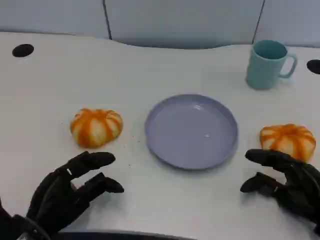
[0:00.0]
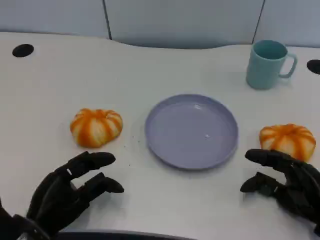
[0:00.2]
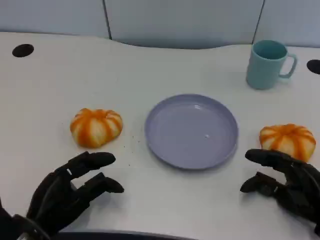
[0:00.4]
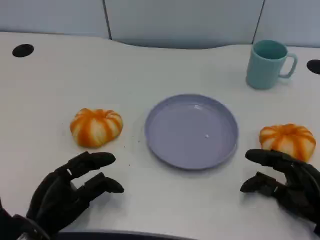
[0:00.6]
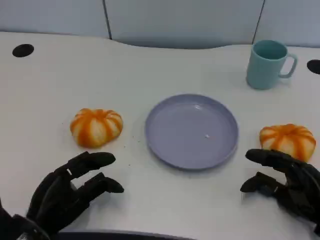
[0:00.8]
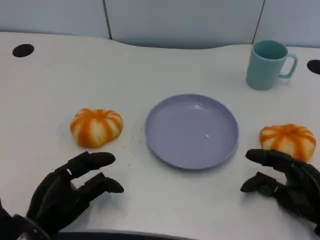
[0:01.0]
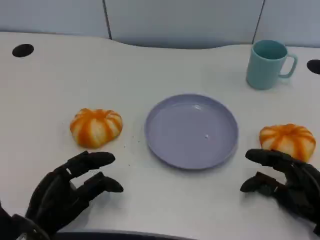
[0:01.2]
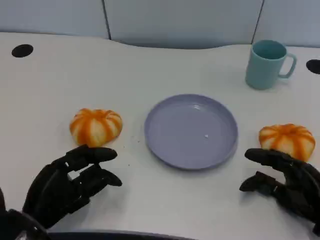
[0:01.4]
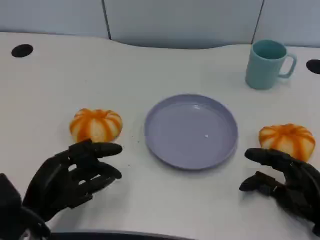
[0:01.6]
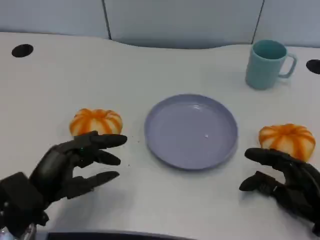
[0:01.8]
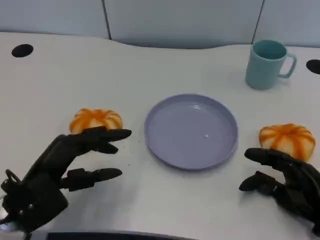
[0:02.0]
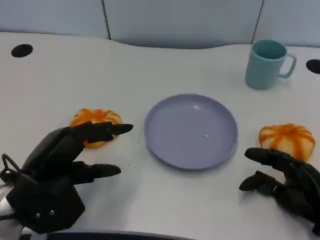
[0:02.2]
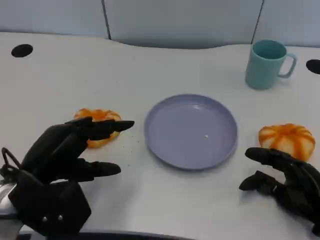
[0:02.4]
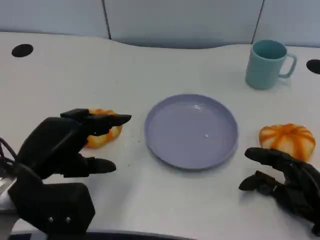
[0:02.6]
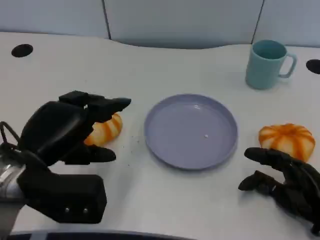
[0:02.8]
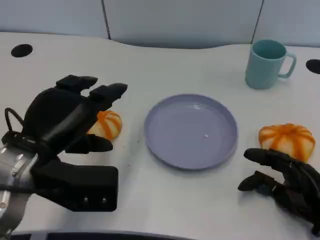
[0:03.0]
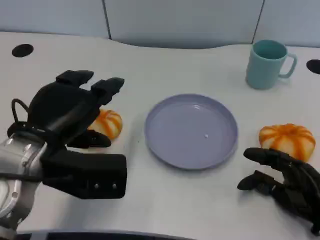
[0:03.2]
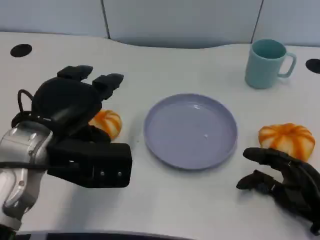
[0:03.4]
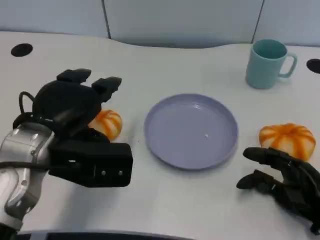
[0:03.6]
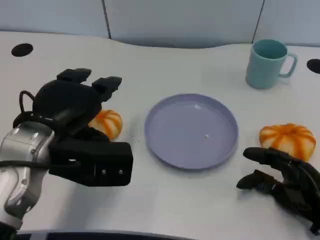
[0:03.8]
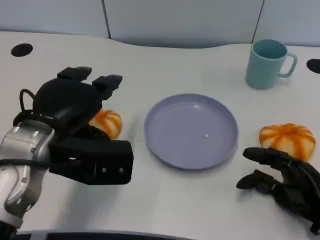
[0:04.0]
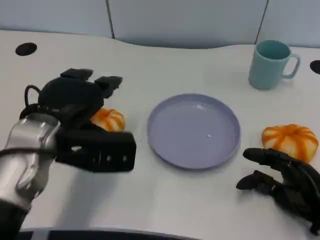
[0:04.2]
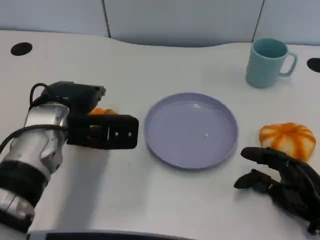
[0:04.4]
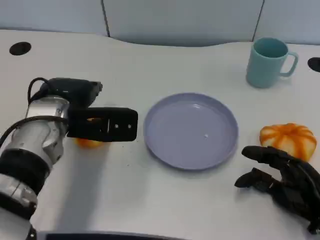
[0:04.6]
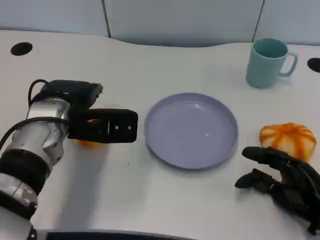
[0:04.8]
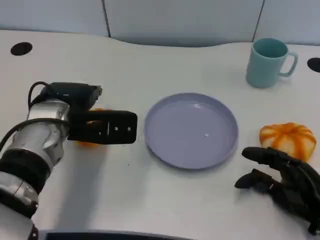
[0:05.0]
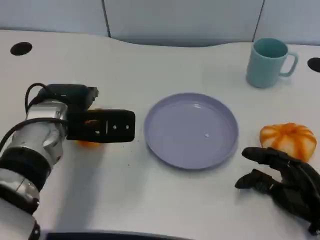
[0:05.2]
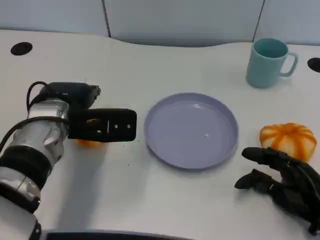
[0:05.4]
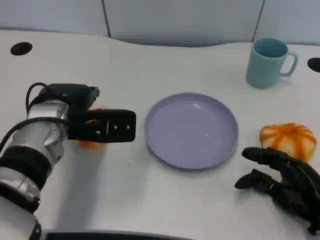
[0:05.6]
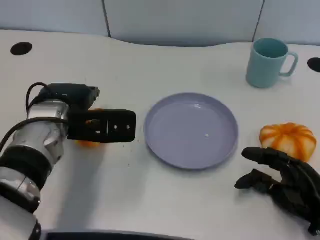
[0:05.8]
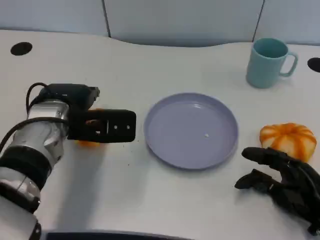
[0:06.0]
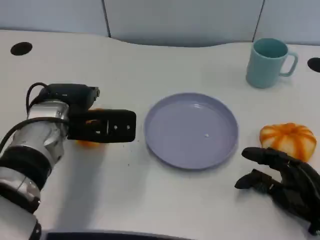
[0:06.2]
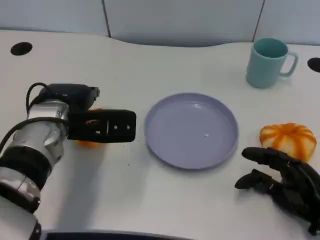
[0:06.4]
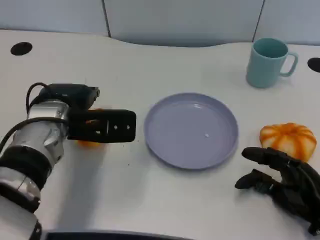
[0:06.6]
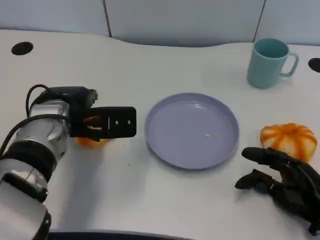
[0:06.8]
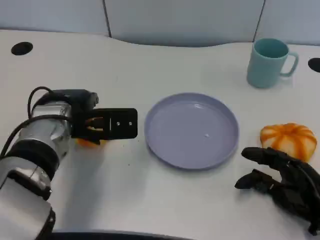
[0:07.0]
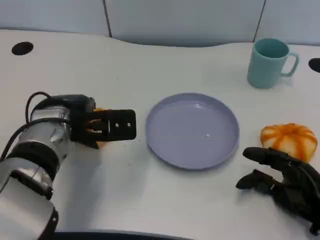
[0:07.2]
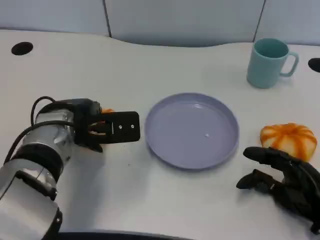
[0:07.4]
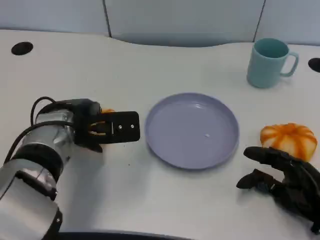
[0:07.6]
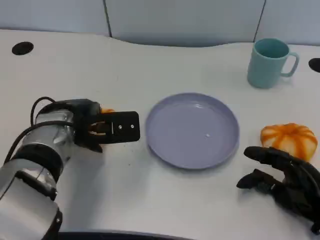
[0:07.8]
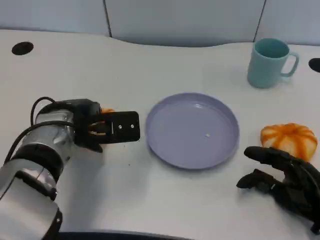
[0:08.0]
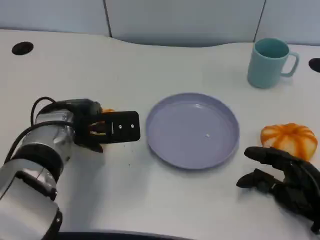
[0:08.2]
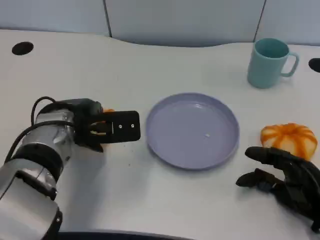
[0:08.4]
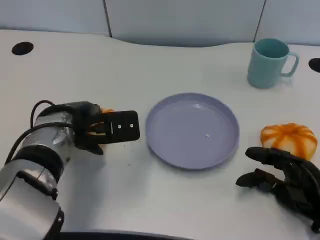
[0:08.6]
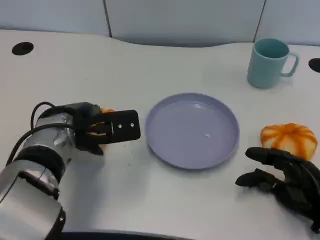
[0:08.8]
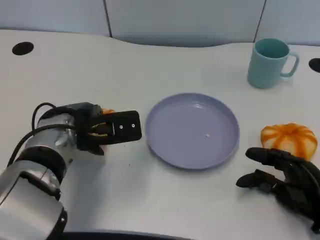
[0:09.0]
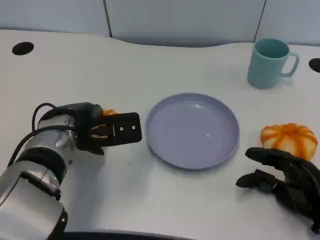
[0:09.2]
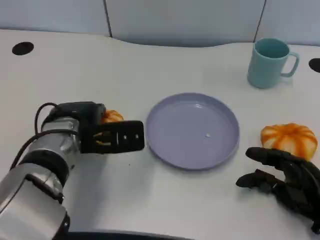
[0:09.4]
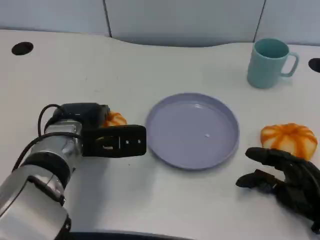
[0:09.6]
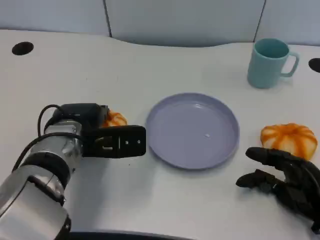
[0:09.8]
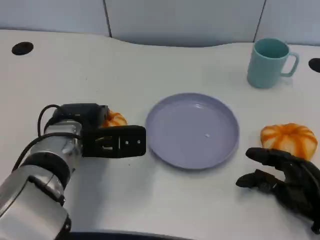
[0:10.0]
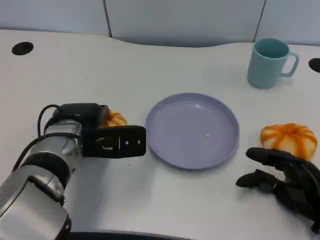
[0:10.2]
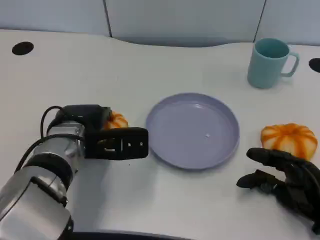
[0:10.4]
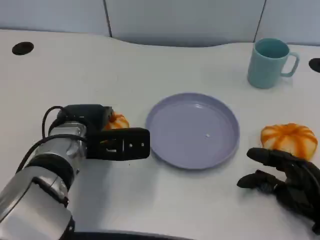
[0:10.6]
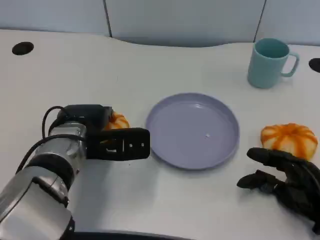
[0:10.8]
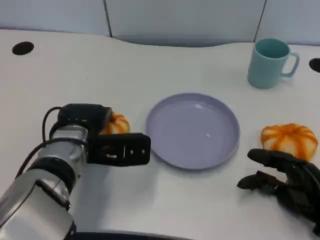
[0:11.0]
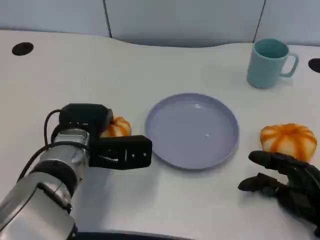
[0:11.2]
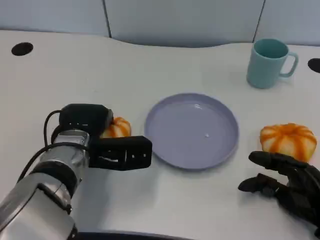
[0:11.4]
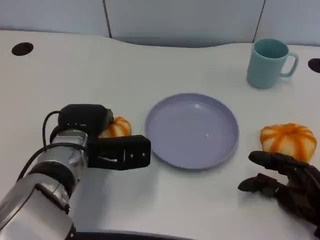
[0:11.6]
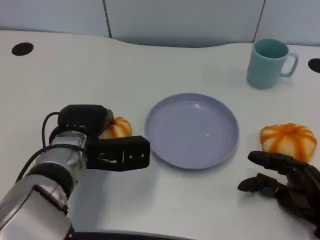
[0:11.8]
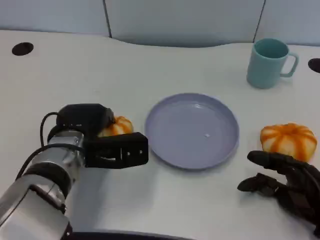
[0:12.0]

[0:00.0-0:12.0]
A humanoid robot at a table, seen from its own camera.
Task of the whole recording: Grasp the bread from the table and place it into the plate.
0:01.6 to 0:03.0: The left hand goes some 10 cm upward.
0:03.0 to 0:04.4: The left hand goes approximately 10 cm forward.
0:04.4 to 0:06.0: Neither hand changes place.
0:06.0 to 0:07.6: The hands make only small movements.
0:07.6 to 0:09.0: Neither hand changes place.
0:09.0 to 0:12.0: The hands move only a little.

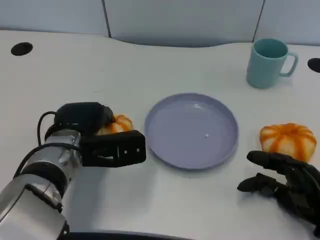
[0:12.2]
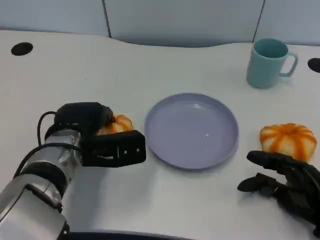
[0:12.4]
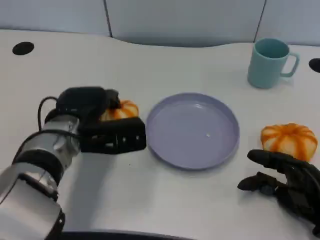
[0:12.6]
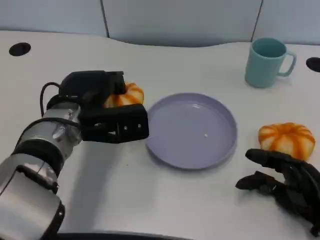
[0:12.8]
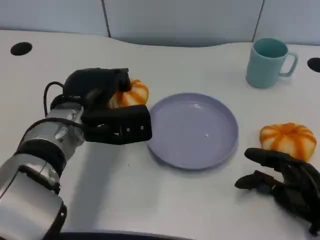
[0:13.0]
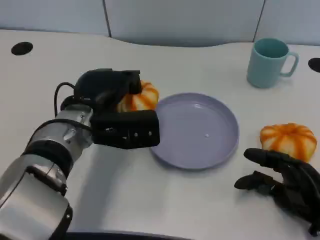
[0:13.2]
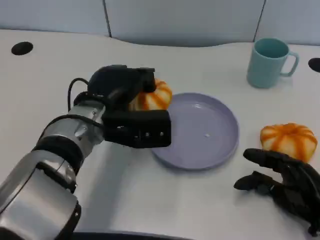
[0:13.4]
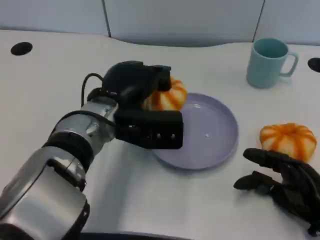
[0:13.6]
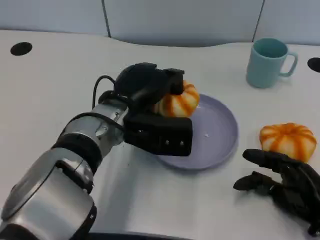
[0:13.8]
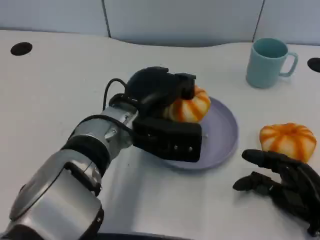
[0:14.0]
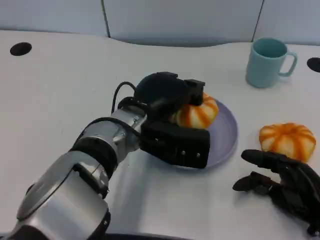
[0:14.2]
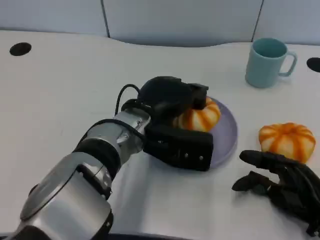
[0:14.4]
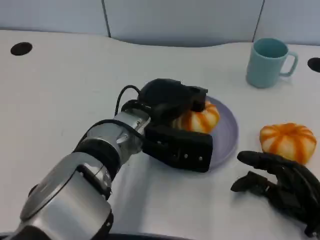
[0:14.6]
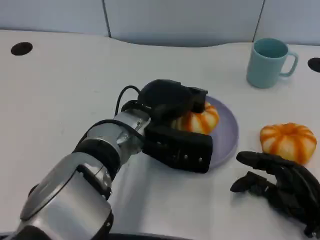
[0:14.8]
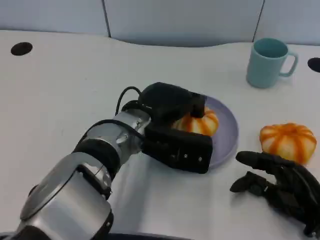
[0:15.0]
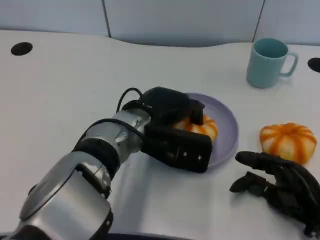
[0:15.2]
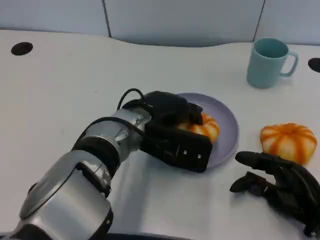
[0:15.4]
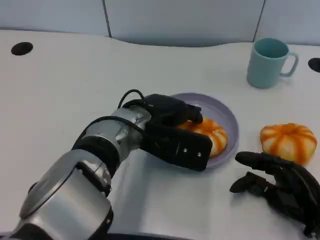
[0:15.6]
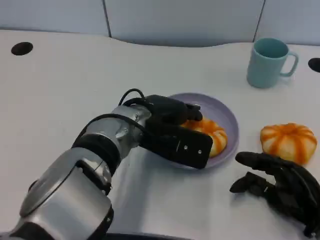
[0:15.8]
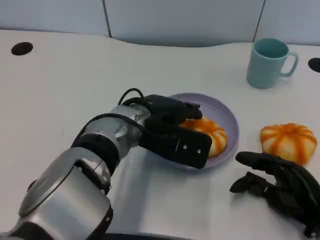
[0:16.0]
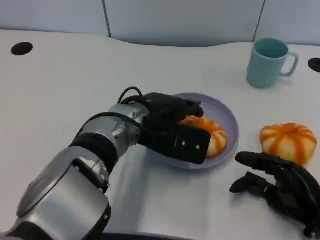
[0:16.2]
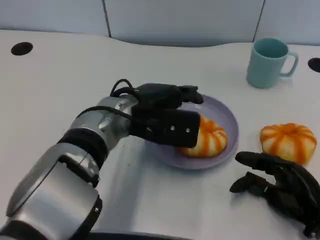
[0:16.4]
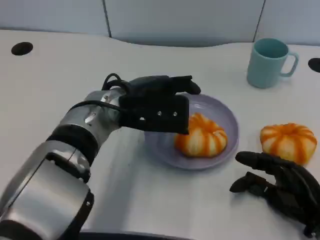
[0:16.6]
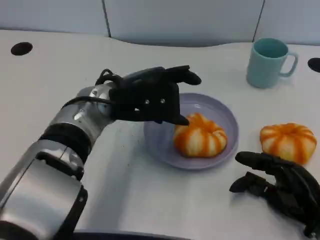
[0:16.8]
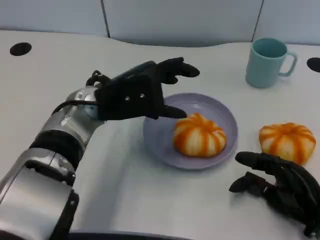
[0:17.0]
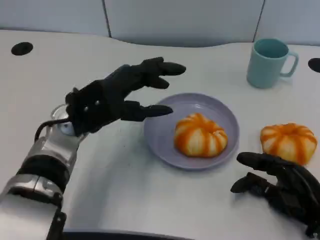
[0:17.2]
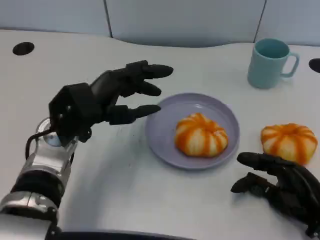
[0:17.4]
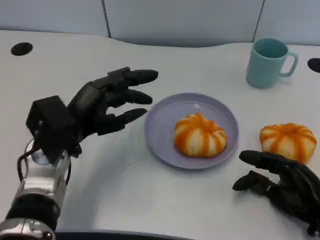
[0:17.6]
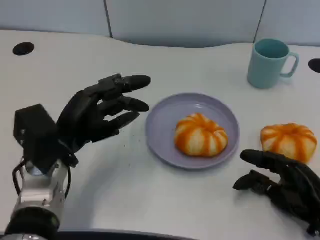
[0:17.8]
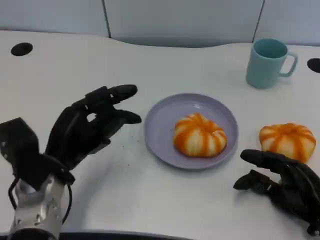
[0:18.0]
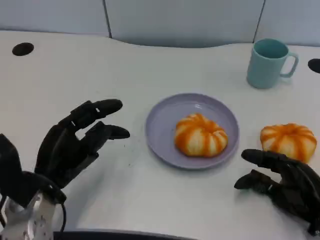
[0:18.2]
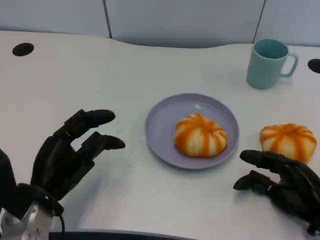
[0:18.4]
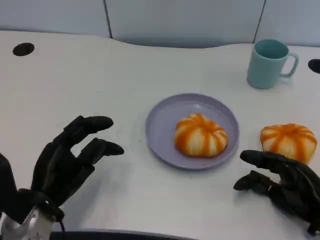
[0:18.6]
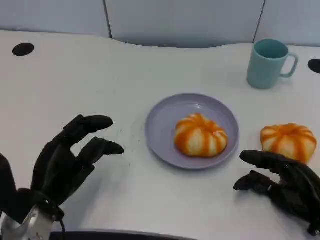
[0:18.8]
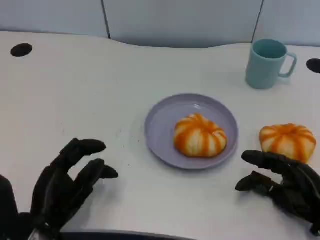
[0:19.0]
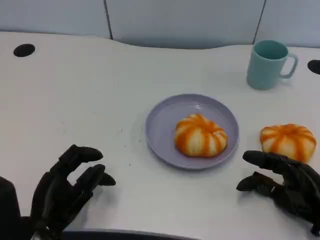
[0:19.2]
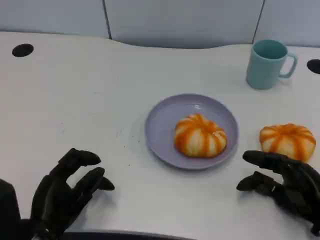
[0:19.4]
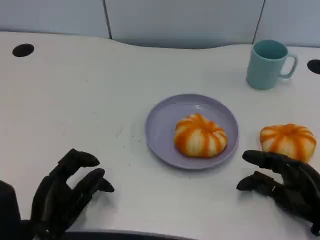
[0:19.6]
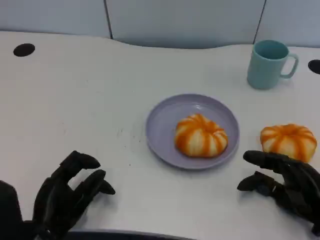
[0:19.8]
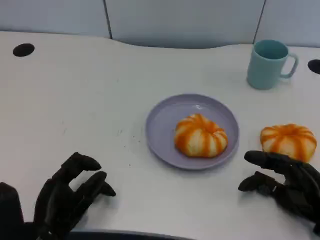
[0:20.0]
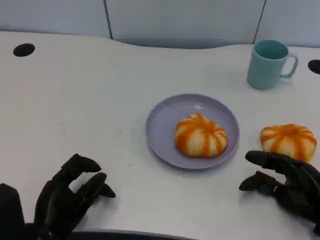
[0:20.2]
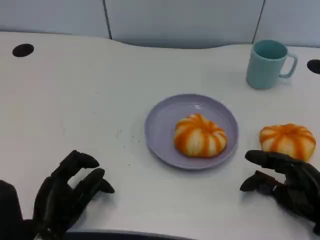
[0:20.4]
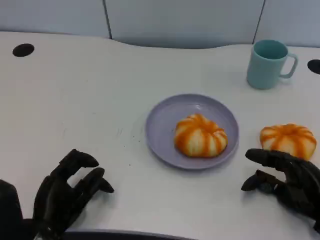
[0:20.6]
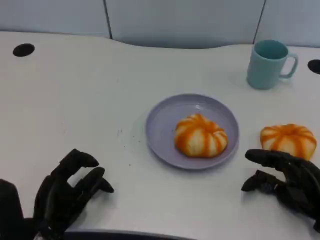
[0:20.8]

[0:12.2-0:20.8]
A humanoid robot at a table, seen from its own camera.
Task of the whole recording: Grasp the bread from the table and place it into the plate.
0:12.2 to 0:13.6: The left hand travels to the right by approximately 5 cm.
0:15.0 to 0:16.6: The left hand shifts by some 5 cm.
0:16.6 to 0:18.0: The left hand goes approximately 15 cm to the left, downward and backward.
0:18.0 to 0:19.4: The left hand moves backward and downward, approximately 10 cm.
0:19.4 to 0:20.8: The hands move only a little.

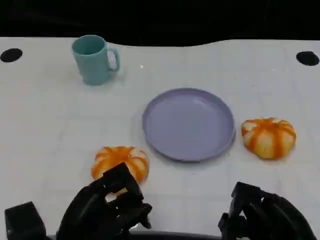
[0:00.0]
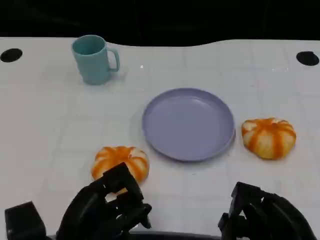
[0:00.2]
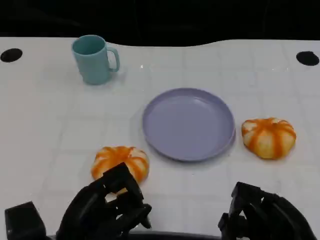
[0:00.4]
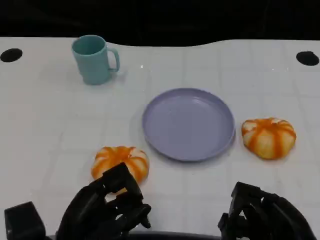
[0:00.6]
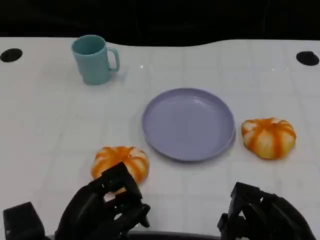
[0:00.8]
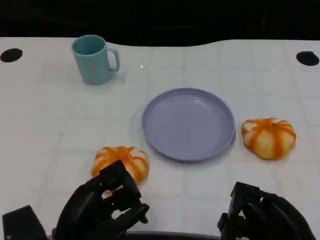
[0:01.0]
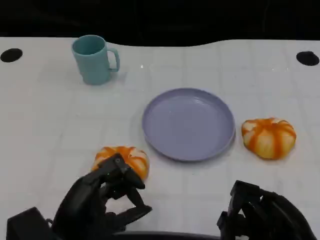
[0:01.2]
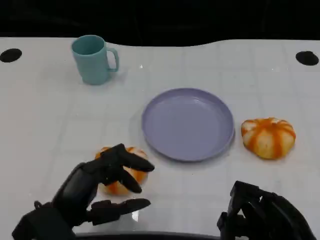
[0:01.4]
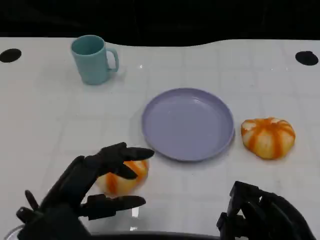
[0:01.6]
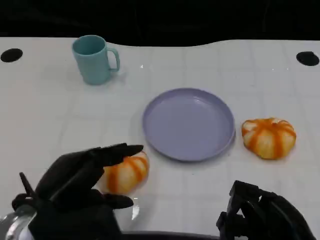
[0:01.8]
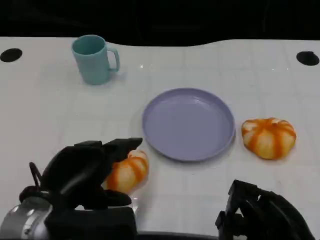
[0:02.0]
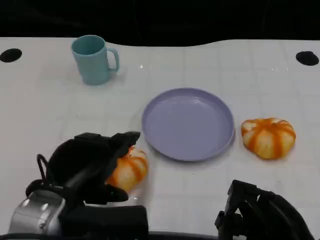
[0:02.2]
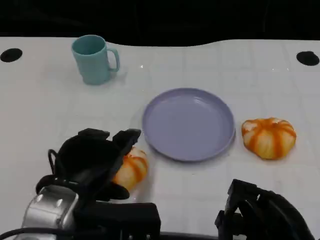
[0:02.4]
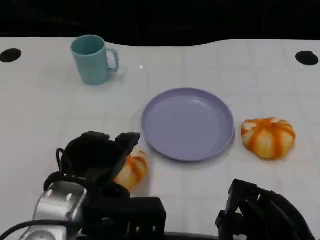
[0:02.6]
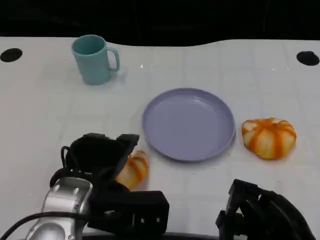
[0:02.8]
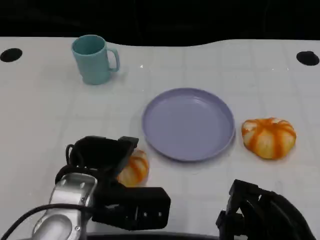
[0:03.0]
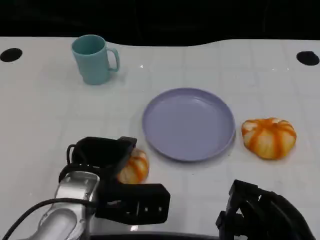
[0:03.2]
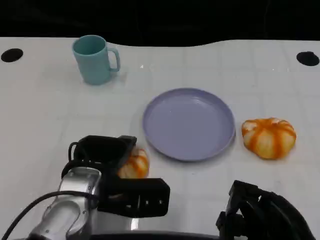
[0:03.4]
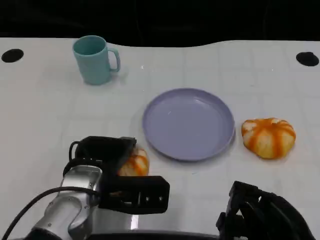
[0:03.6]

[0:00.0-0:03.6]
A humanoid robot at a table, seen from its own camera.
Task of the whole recording: Grasp the bread from the table and place it into the plate.
0:00.0 to 0:01.8: The left hand shifts approximately 5 cm upward.
0:01.8 to 0:03.6: The left hand shifts approximately 10 cm forward and to the right.
